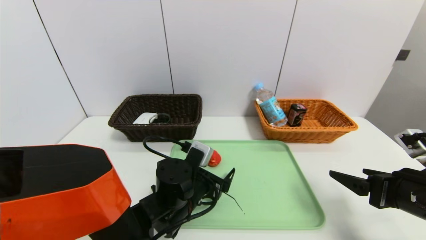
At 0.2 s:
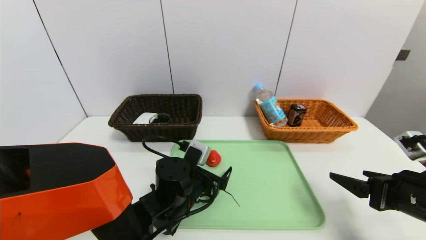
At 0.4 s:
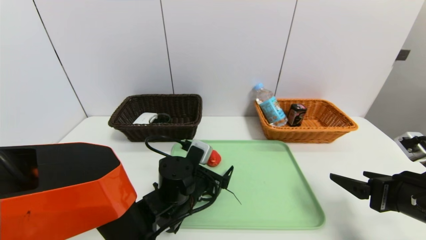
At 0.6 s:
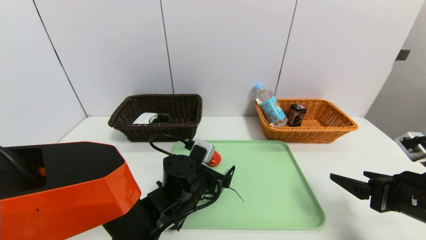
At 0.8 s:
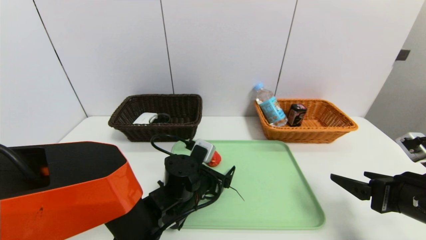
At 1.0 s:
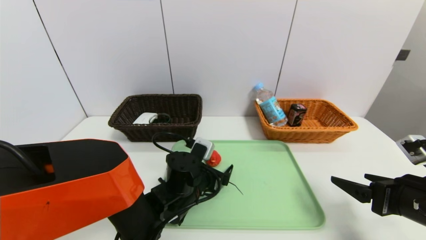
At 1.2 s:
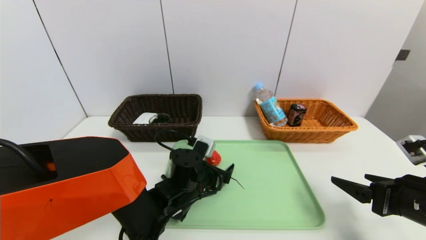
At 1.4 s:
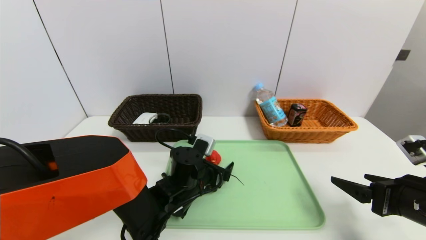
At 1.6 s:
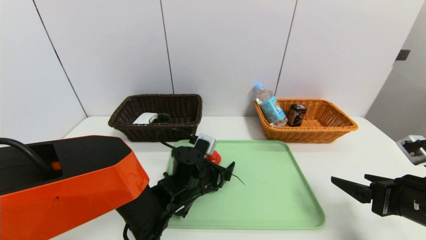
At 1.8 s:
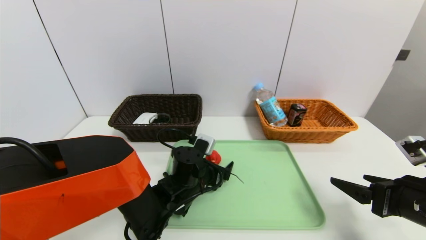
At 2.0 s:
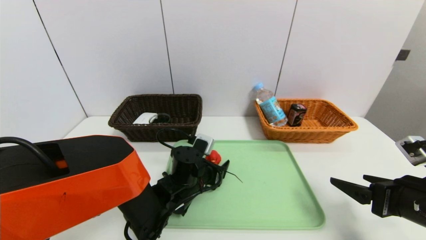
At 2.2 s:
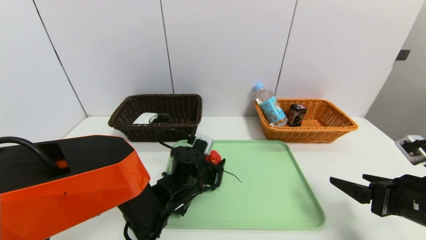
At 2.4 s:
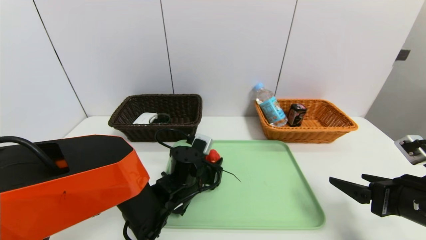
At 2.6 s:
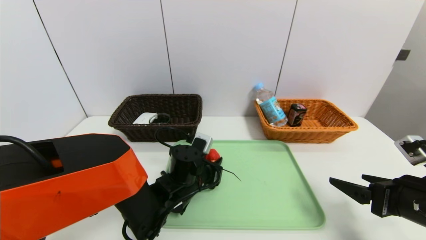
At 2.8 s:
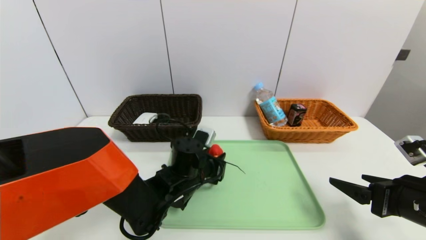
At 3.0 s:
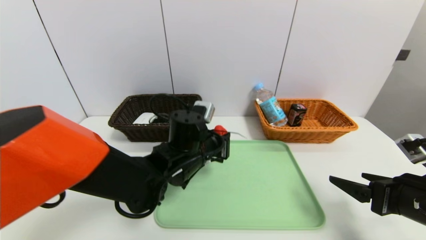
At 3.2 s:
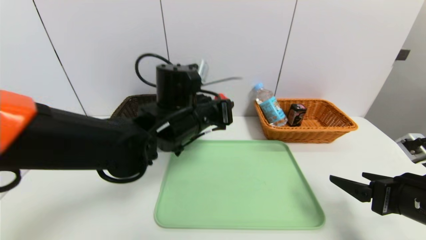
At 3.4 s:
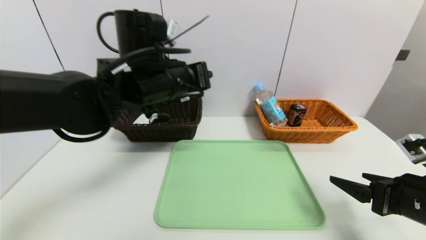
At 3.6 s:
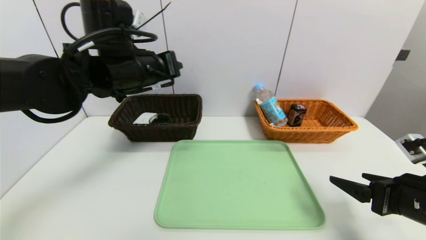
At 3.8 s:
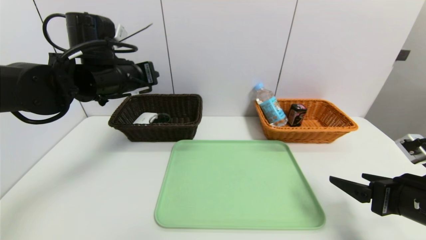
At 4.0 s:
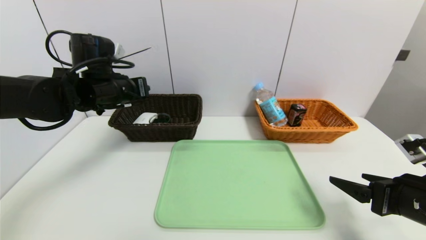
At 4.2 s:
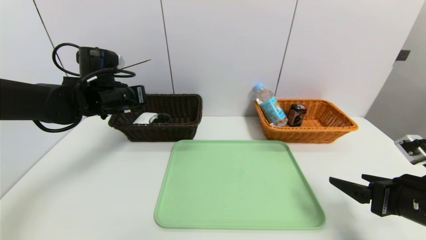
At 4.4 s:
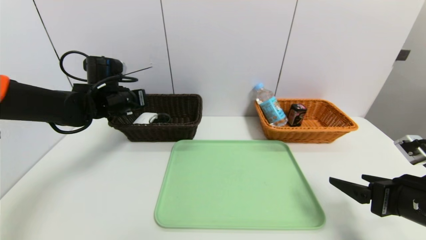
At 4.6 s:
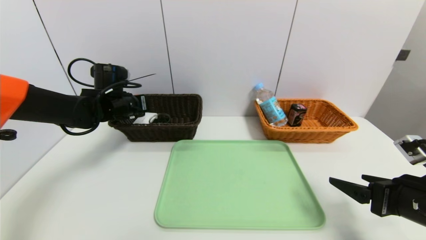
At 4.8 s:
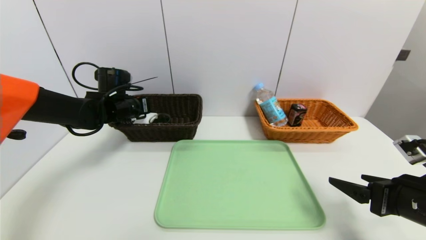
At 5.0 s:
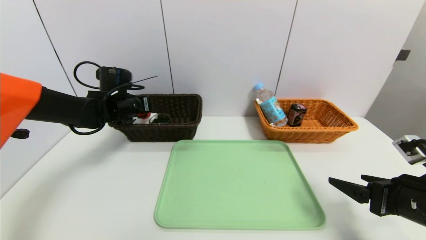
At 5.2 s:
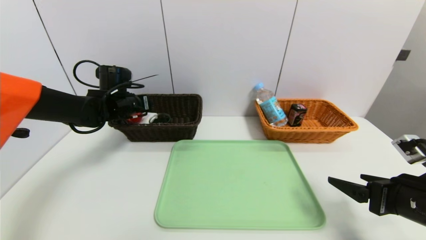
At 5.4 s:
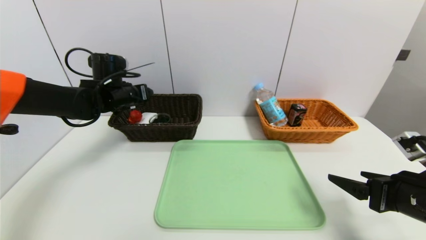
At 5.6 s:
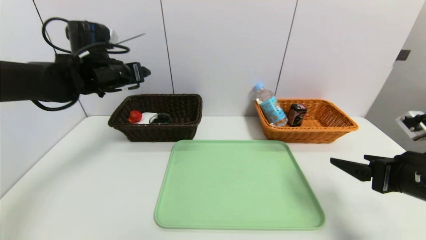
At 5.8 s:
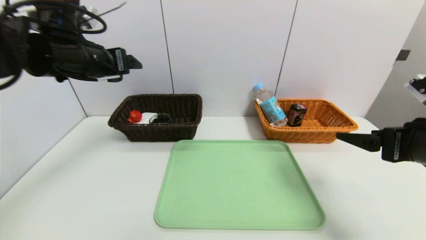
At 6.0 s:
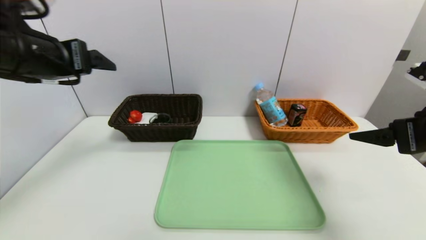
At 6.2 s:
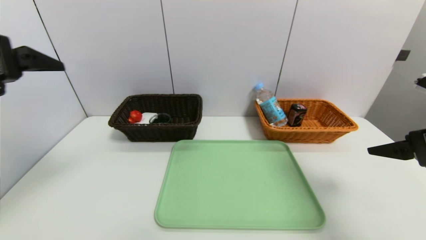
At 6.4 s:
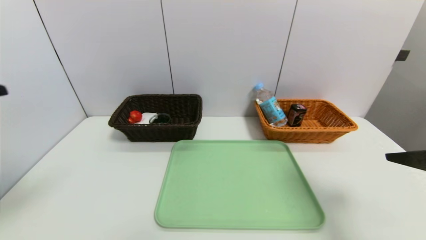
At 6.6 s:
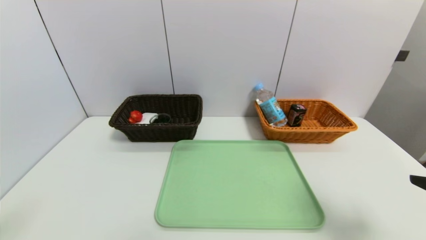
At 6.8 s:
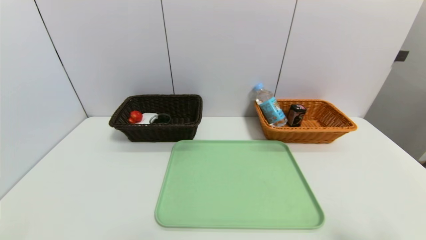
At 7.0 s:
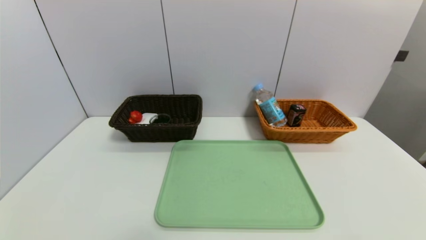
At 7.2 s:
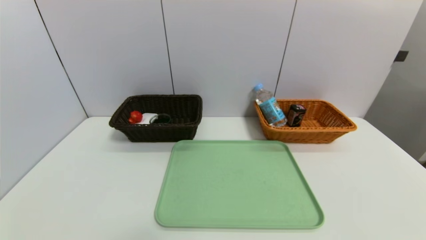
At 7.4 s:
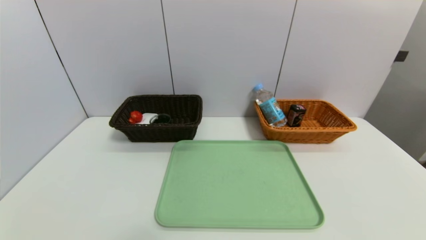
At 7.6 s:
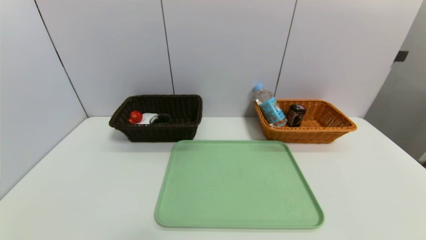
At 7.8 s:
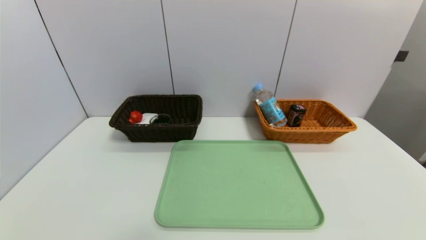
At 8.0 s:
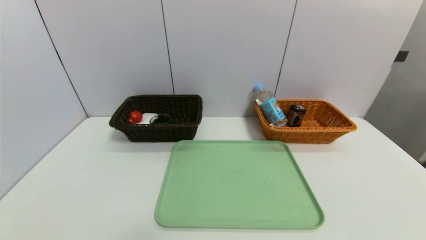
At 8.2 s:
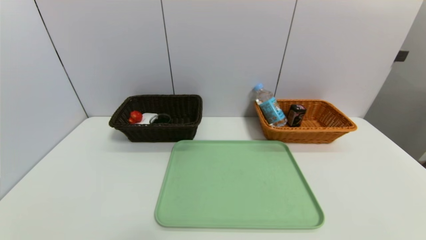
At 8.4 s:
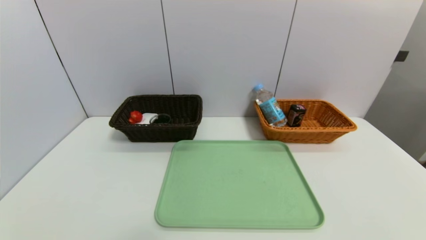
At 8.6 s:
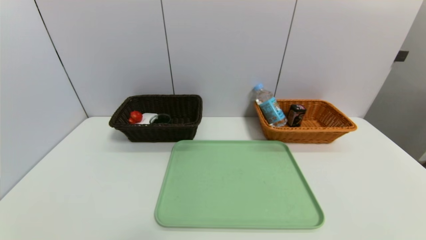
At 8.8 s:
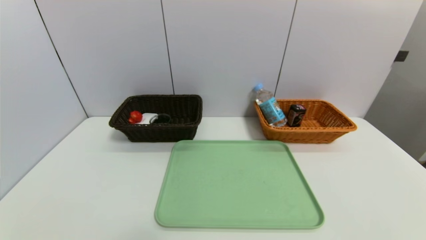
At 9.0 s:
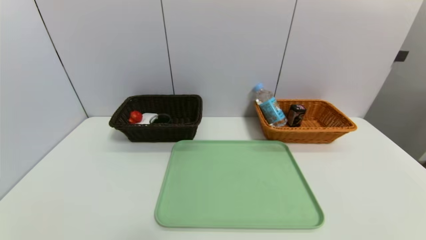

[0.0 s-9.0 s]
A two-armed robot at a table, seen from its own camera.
Task of the whole recording: place the food in the right basket with the right gripper, and place the non food items in the left basket with the left gripper.
Step, 0.0 to 5.4 s: Grasp the red duck and put it in the left basket.
0.0 to 1.6 s: The grippers stay close to where they were, moving slightly.
1.6 to 3.0 s: The left gripper shifts about 10 cm upward, and closes its fingers.
3.0 to 4.4 s: The left gripper travels to the left and forward by approximately 20 cm.
4.4 to 6.0 s: The right gripper moves upward, about 10 cm. The left gripper travels backward and upward by roughly 25 cm, and opens.
6.0 to 7.6 s: The grippers both shift backward and downward by some 30 cm.
